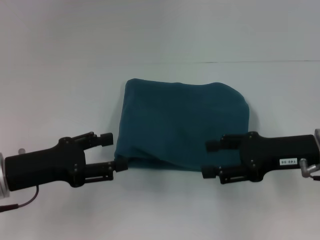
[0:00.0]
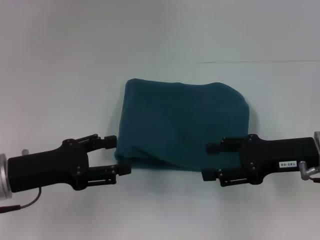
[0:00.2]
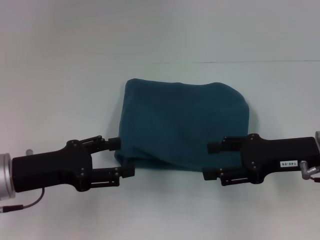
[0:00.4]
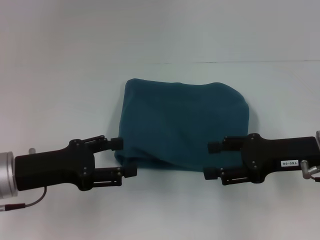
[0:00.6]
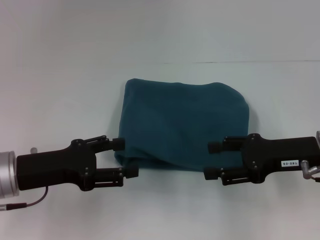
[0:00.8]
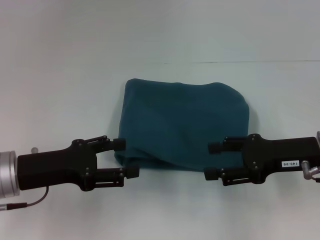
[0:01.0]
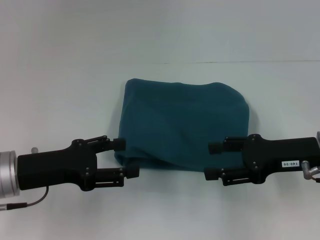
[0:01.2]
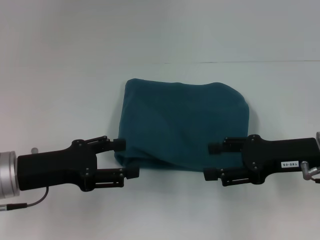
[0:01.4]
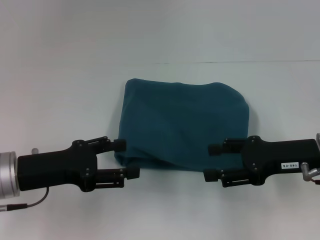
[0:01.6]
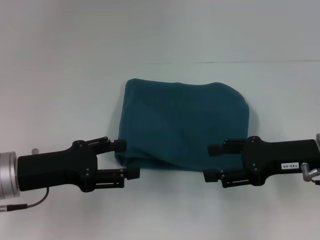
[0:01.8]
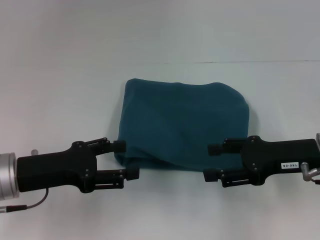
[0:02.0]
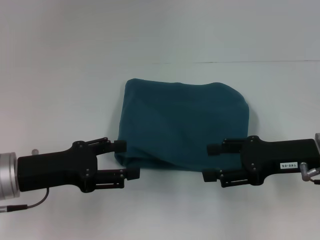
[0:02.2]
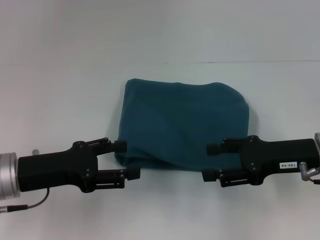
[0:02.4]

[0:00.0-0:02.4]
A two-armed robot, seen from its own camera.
0:00.0 to 0:02.4: Both grippers stay about where they are.
